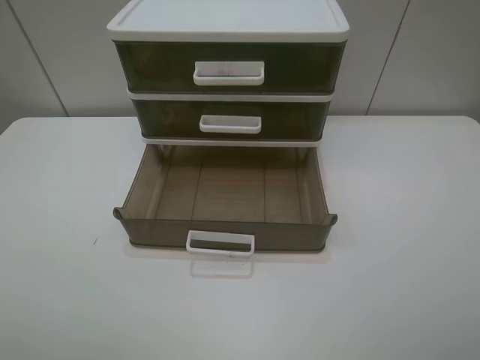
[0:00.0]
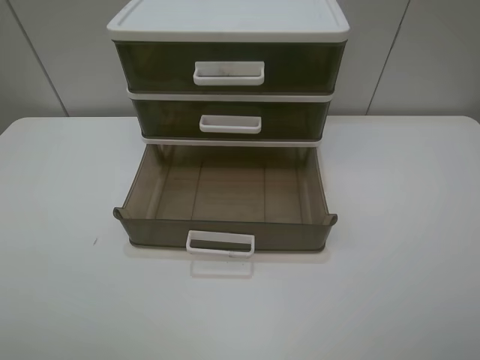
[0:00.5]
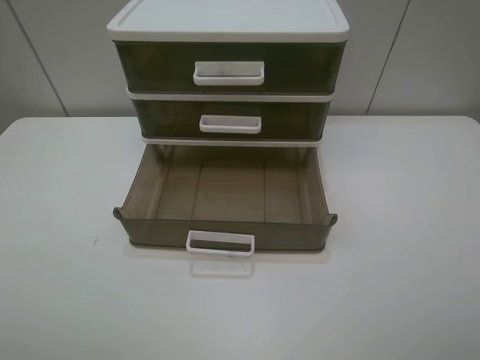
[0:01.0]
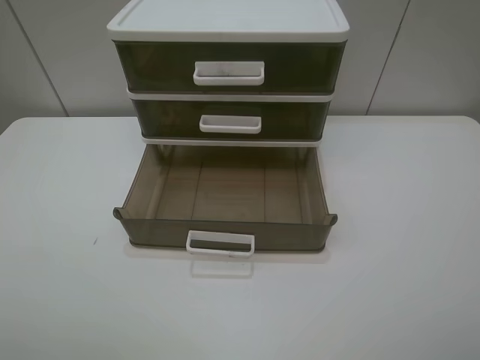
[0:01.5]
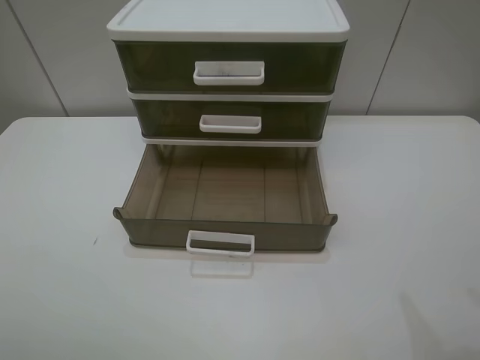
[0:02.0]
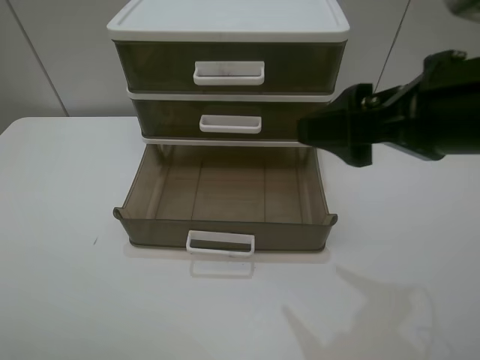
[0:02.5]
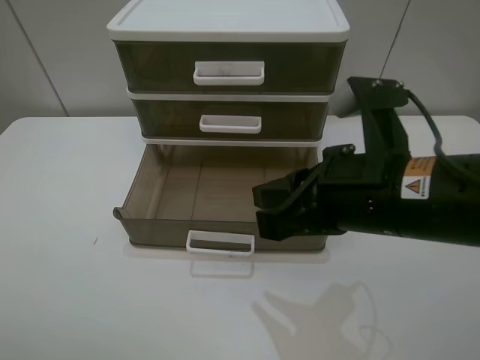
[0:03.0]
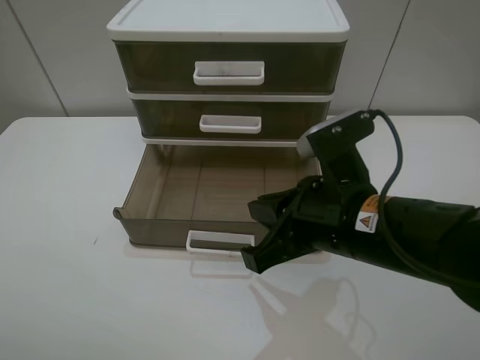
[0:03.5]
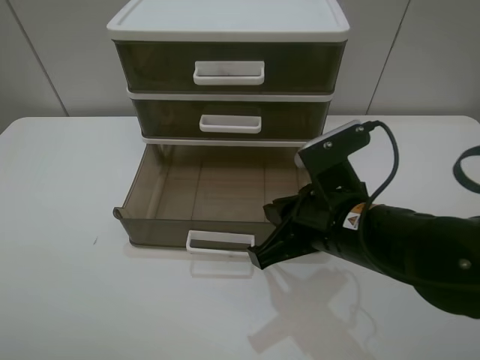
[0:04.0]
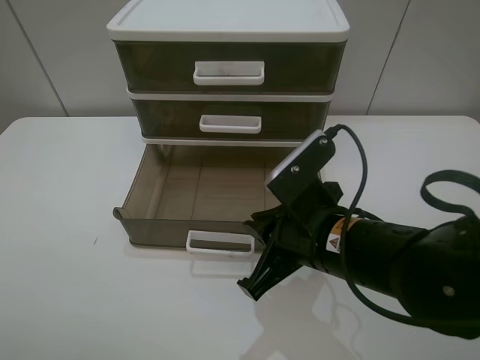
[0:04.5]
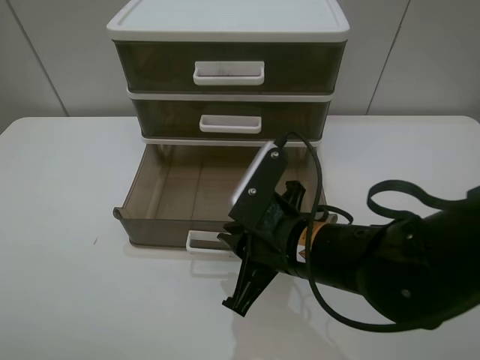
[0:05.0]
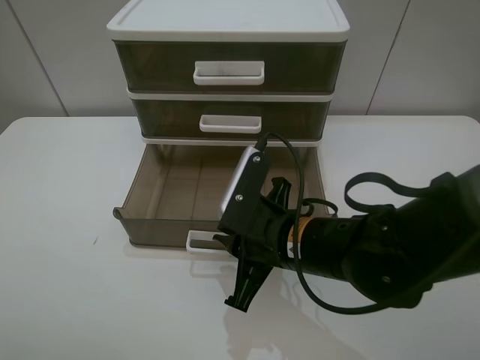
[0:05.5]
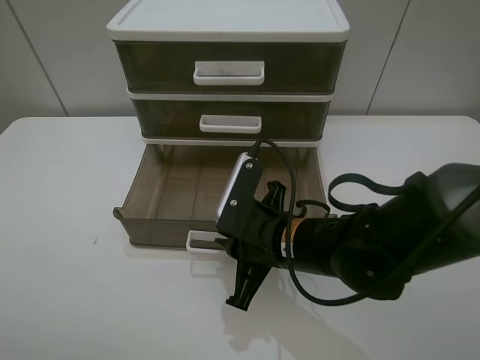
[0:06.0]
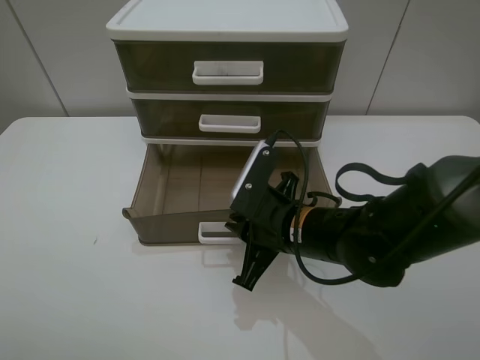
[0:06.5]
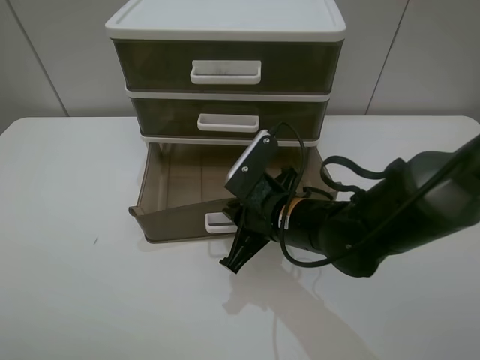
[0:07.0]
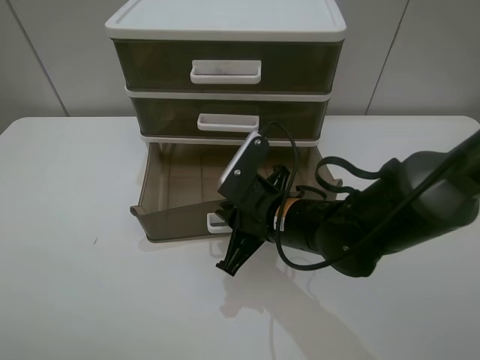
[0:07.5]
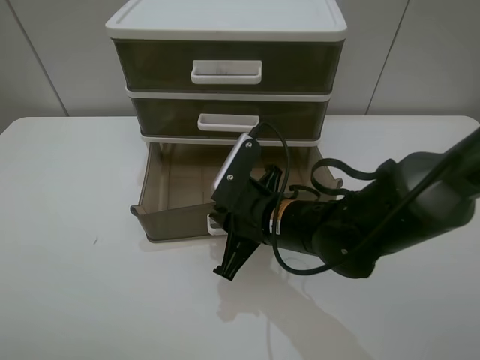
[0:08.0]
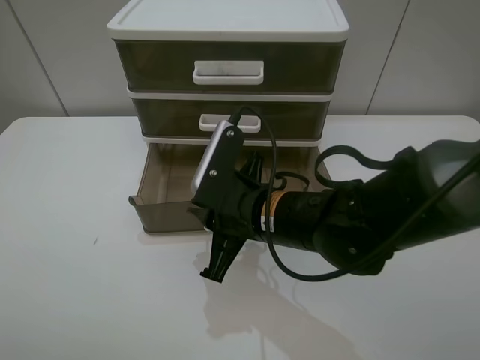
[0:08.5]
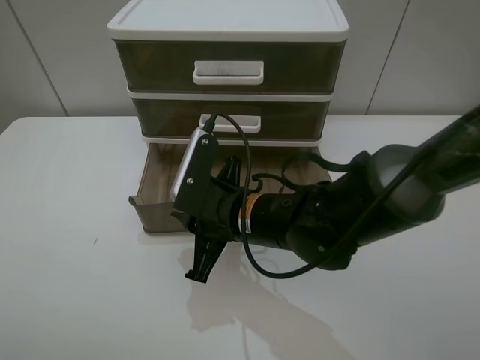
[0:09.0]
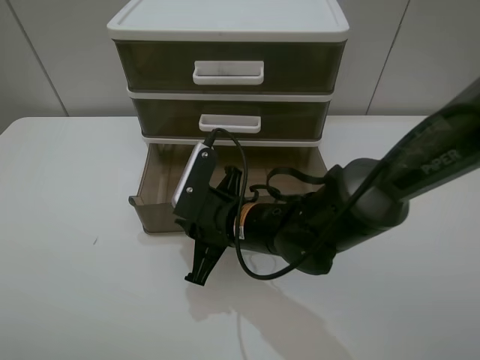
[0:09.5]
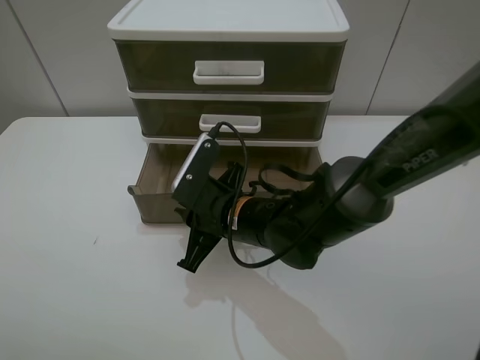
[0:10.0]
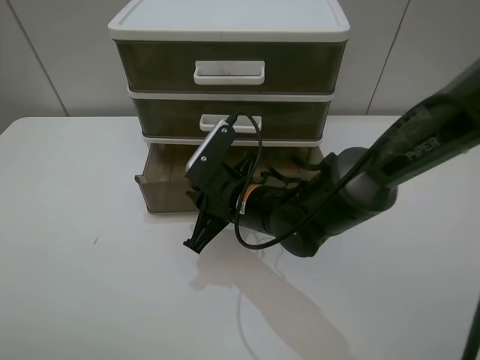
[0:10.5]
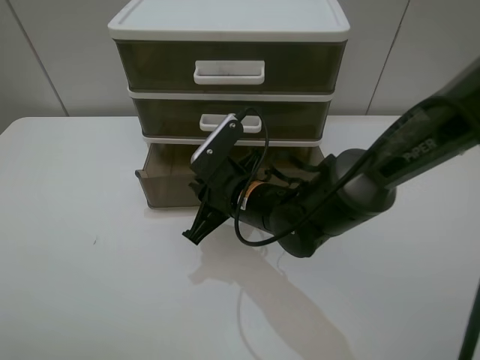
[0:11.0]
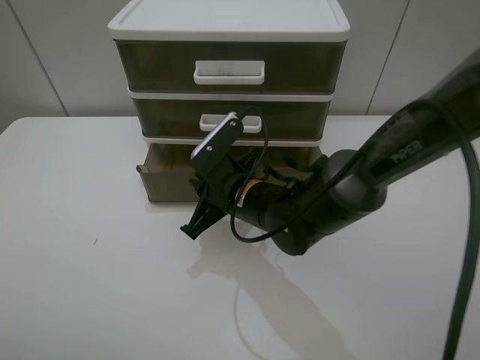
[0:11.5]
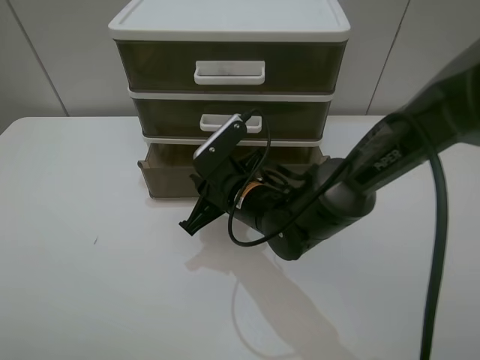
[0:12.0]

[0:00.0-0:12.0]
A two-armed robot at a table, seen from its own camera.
Task of the whole recording: close the bottom drawer.
Step, 0:00.0 to 0:06.0: Use the right gripper to contact the bottom layer of the storage cabinet.
0:02.0 to 0:04.0: The right gripper travels downward and to the left by roughly 25 cm, and closes up.
0:04.0 to 0:06.0: The right gripper moves downward, some 5 cm.
0:06.0 to 0:08.0: The grippers stay close to where they were, moving slightly.
0:08.0 to 0:10.0: The right gripper changes place by approximately 5 cm.
0:10.0 to 0:12.0: There are only small adjustments of the grippers.

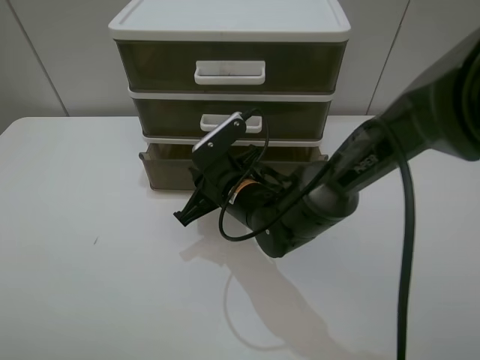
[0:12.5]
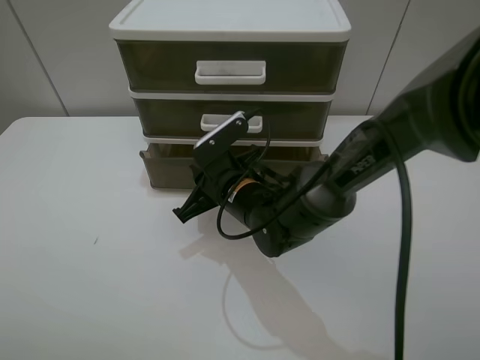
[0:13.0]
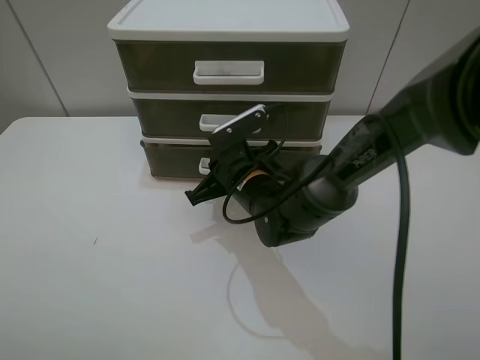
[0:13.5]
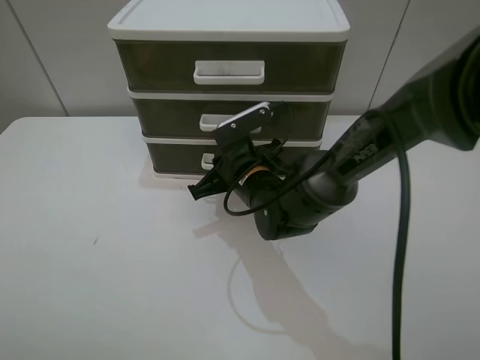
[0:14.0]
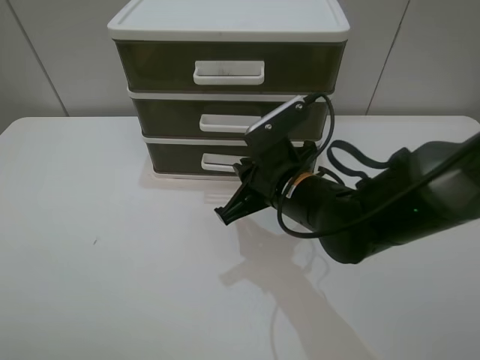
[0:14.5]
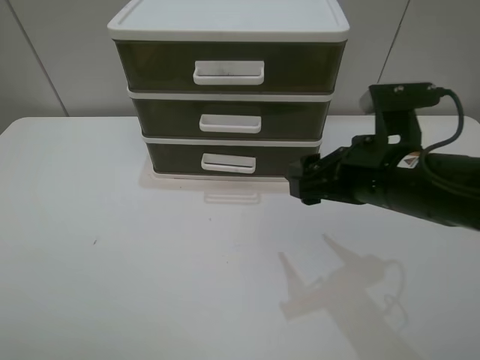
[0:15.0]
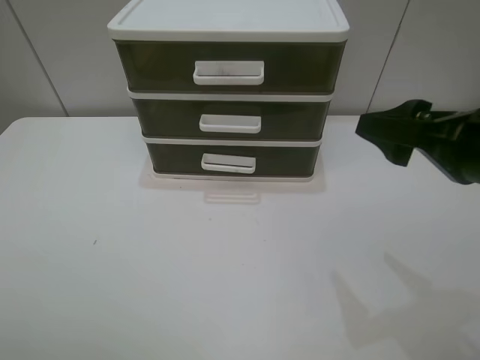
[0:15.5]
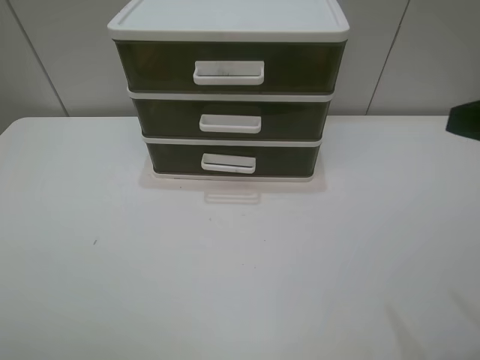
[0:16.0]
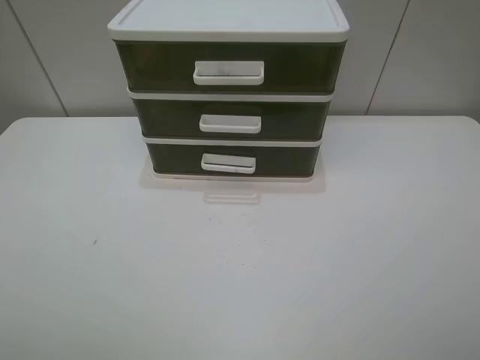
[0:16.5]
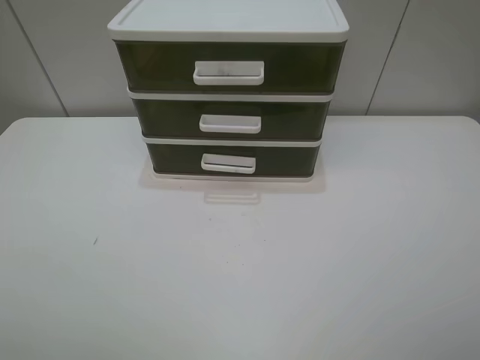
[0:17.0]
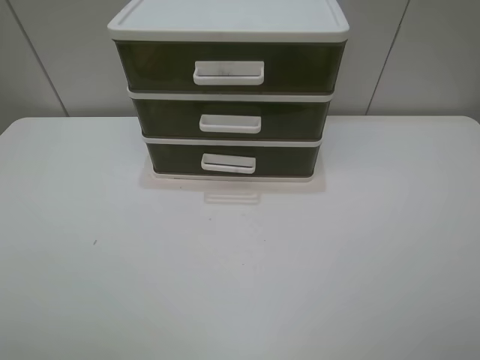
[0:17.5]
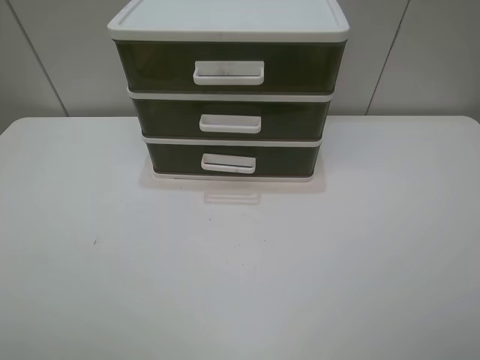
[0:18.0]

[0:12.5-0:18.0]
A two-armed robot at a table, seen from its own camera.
Task of the whole recording: close the bottom drawer.
0:12.5 to 0:14.5: The right gripper travels to the right and upward by some 10 cm.
0:14.5 to 0:16.0: The right gripper moves to the right, upward and backward, approximately 30 cm, and opens its fingers.
